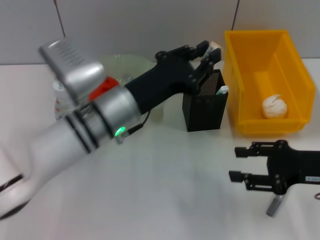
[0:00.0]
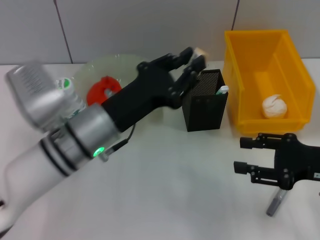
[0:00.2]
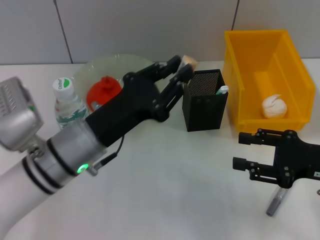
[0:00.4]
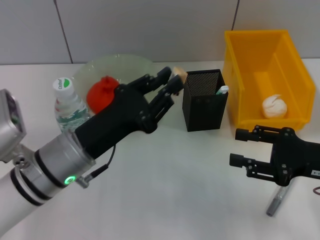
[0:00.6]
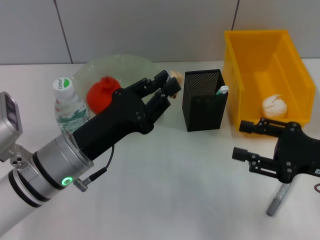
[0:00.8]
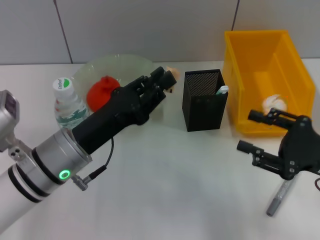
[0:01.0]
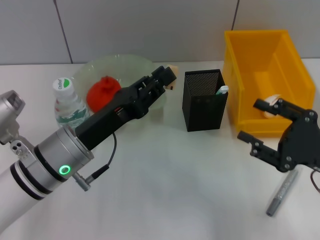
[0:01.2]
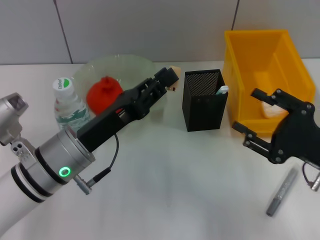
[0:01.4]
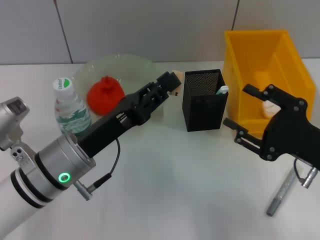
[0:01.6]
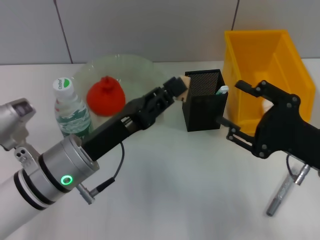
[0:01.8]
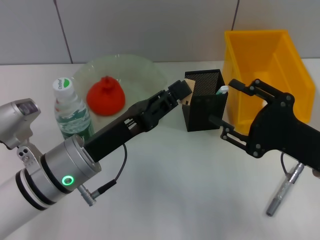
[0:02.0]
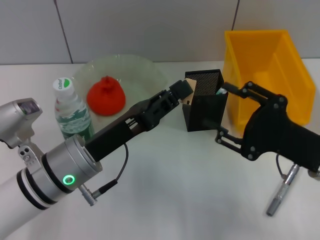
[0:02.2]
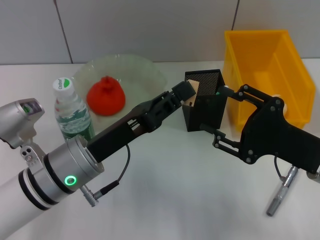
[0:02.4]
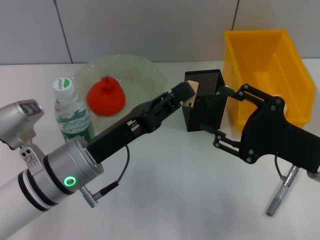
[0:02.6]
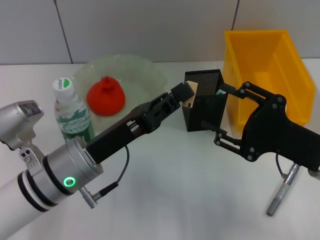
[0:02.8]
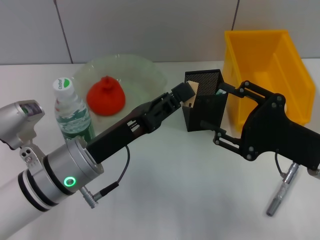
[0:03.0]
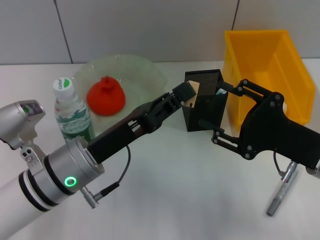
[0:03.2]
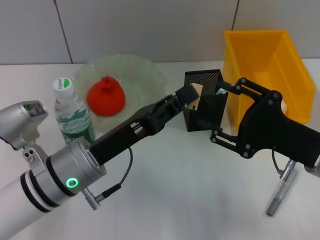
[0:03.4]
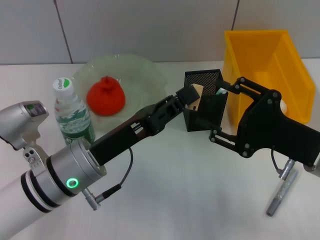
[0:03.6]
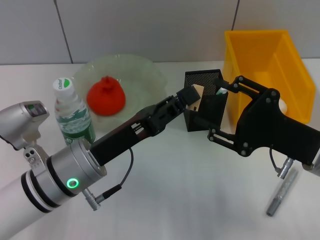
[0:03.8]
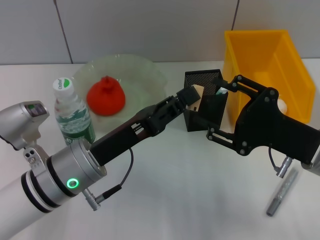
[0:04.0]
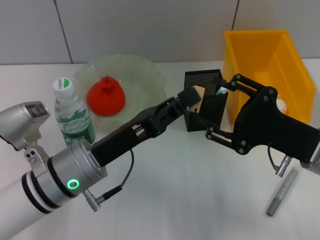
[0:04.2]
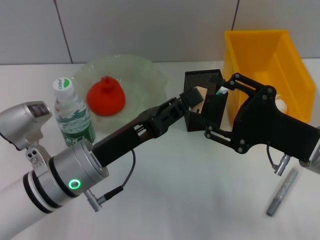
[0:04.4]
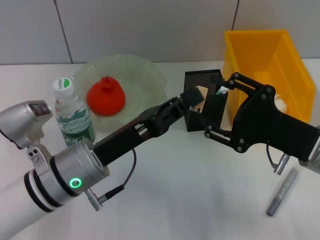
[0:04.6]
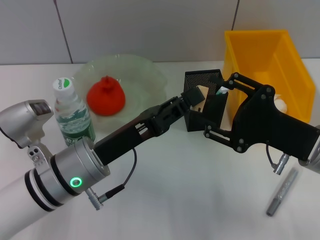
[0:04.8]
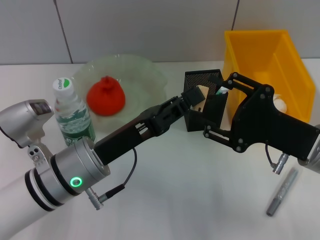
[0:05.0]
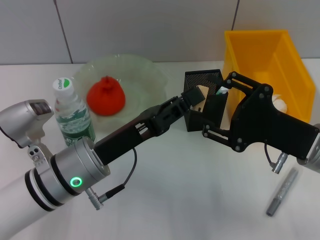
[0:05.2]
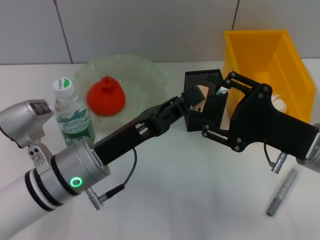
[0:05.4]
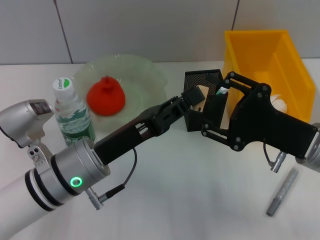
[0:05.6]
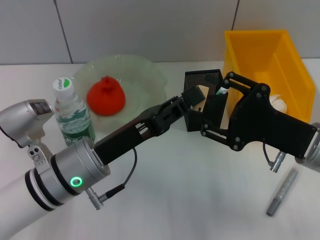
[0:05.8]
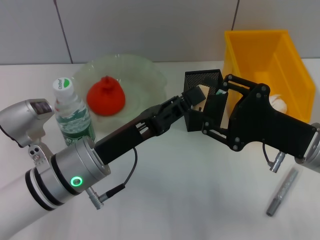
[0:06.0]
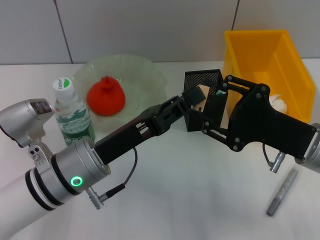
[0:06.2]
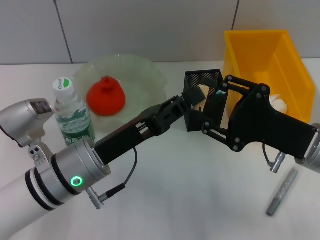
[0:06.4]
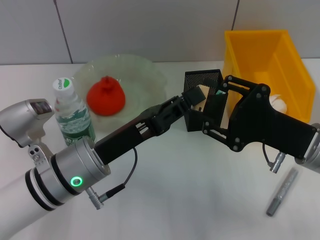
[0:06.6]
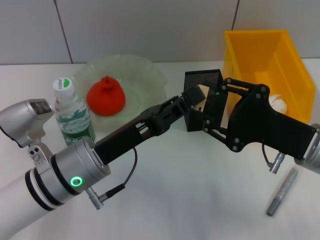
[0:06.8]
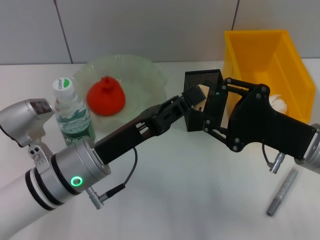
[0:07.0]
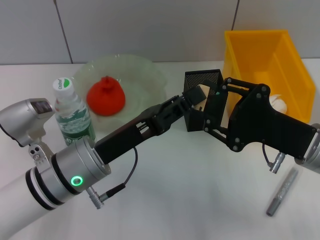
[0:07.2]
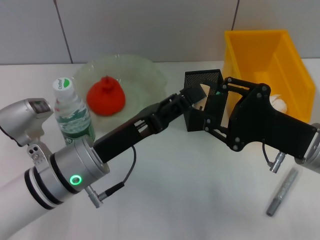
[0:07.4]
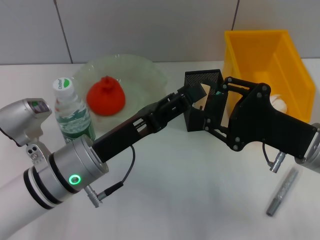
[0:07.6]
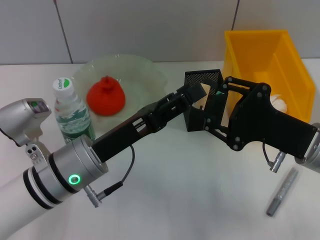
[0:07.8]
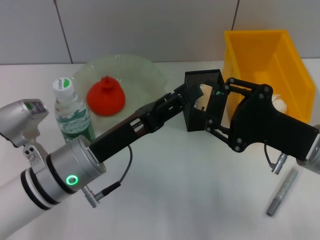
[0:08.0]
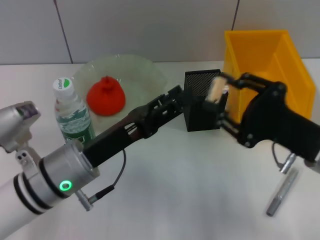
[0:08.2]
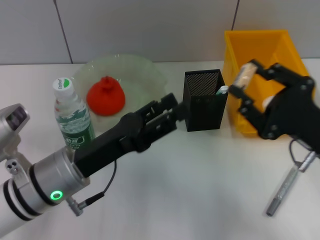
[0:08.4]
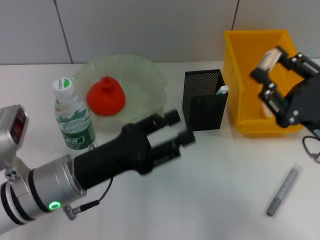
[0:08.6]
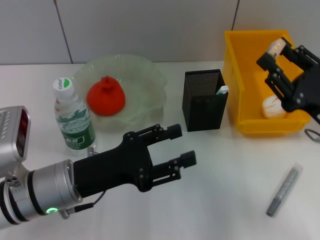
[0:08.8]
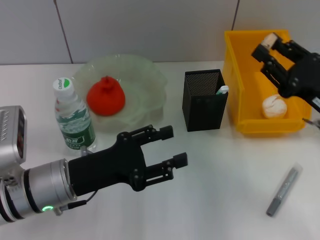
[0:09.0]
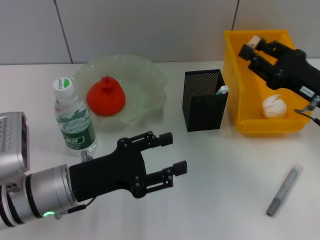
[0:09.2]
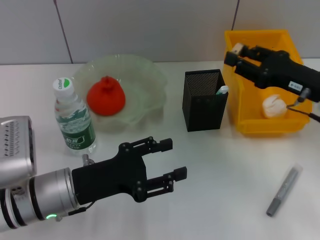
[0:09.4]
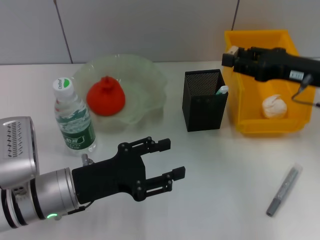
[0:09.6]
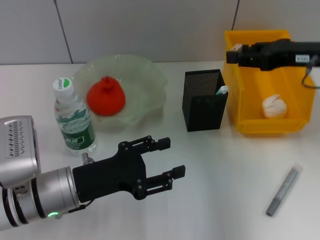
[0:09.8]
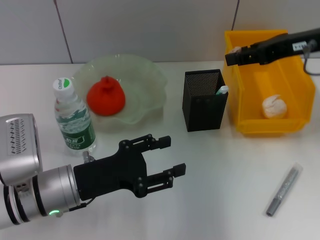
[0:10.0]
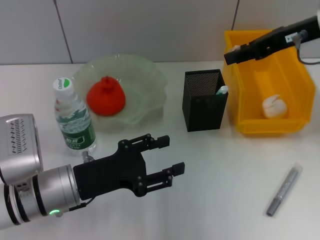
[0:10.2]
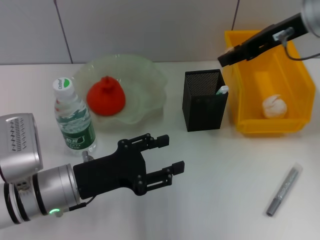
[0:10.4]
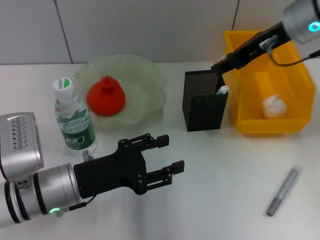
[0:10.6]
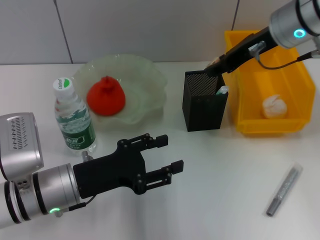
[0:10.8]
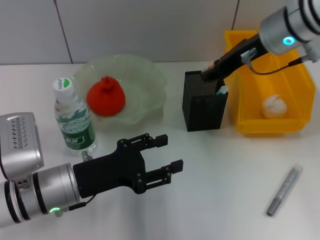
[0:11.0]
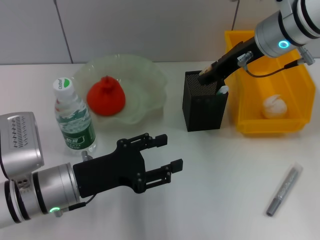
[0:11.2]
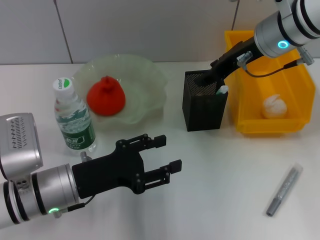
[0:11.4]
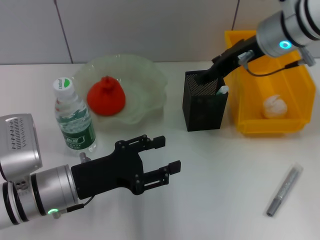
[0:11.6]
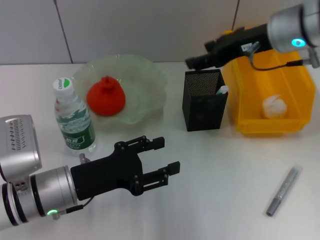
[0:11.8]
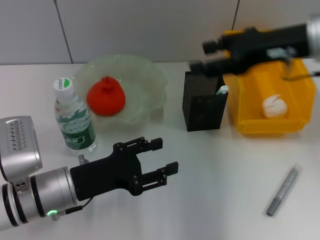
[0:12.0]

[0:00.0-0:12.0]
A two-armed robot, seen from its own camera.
Step, 0:00.0 to 0:08.2: Pass the eraser from the left hand to the right hand.
Step, 0:08.4 to 0:11.6: Put the eraser into the pen holder with the right hand.
0:00.0 to 0:01.6: The left gripper goes about 10 cm backward and to the left.
0:01.6 to 0:04.4: There are only small adjustments of the grippers.
0:04.4 to 0:07.6: The two grippers keep their place.
0:07.6 to 0:09.0: The left gripper opens up; the right gripper heads to the right, covering some 5 cm.
0:09.0 to 0:10.4: The right gripper is displaced upward and forward by roughly 20 cm.
0:10.4 to 0:12.0: The right gripper moves backward, about 5 cm, and opens.

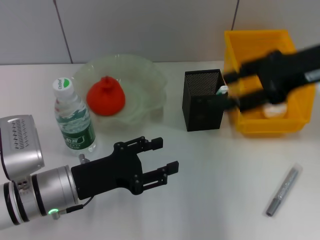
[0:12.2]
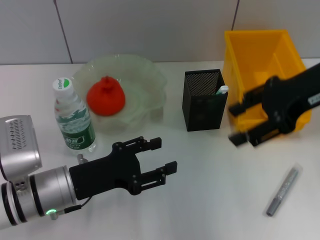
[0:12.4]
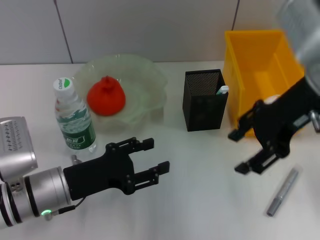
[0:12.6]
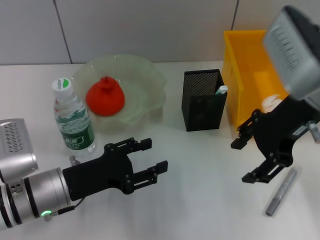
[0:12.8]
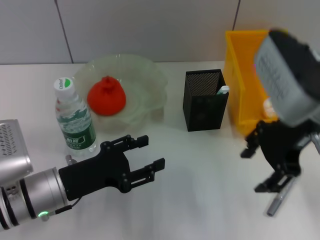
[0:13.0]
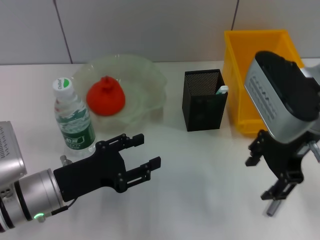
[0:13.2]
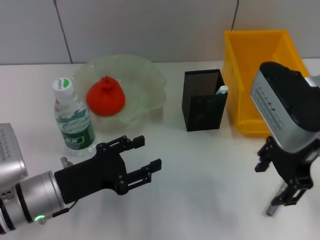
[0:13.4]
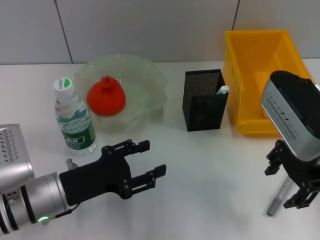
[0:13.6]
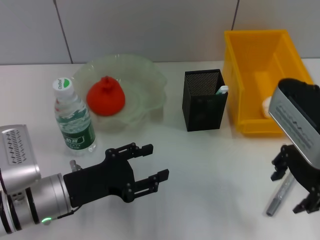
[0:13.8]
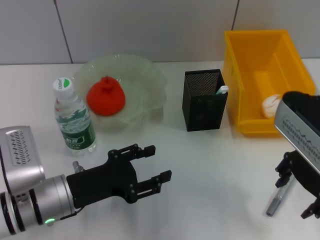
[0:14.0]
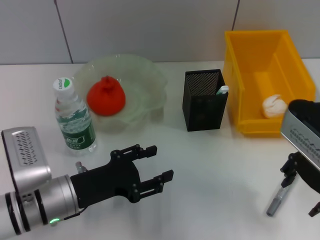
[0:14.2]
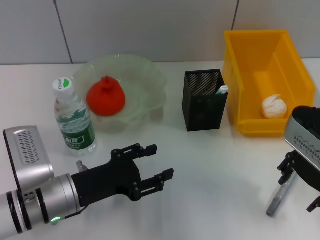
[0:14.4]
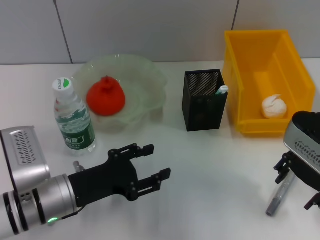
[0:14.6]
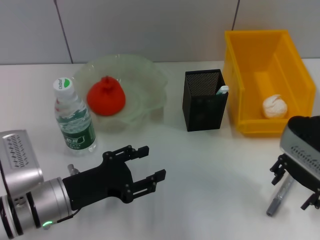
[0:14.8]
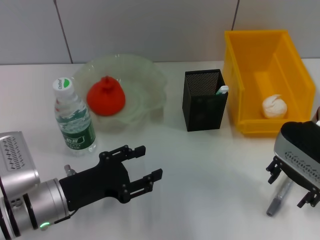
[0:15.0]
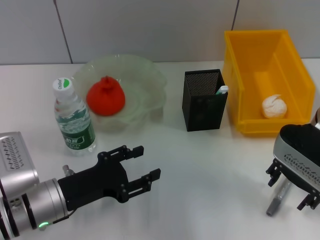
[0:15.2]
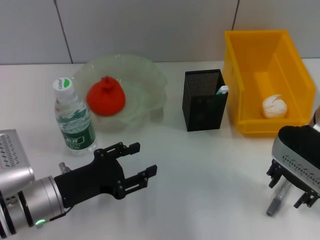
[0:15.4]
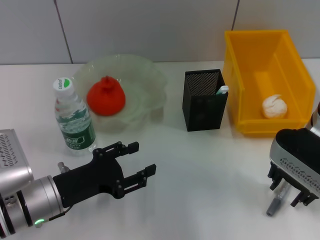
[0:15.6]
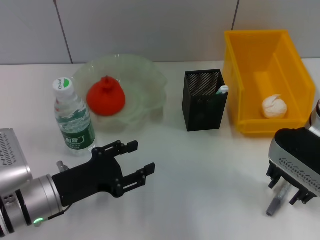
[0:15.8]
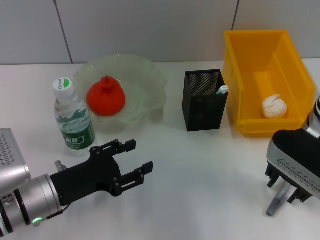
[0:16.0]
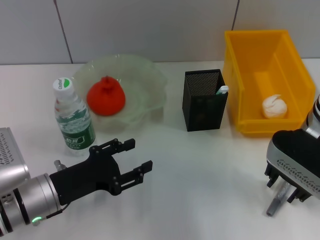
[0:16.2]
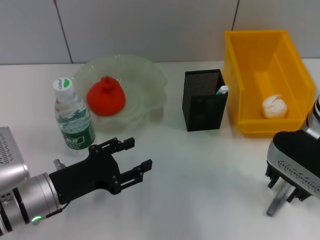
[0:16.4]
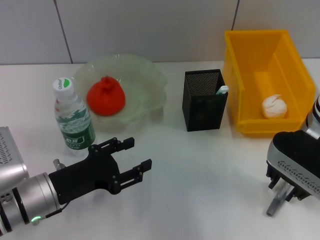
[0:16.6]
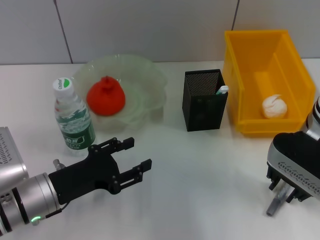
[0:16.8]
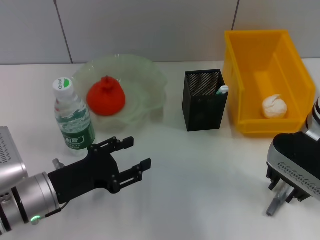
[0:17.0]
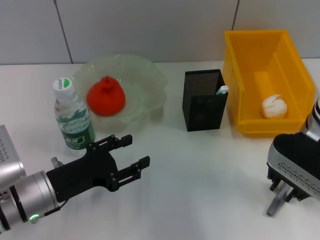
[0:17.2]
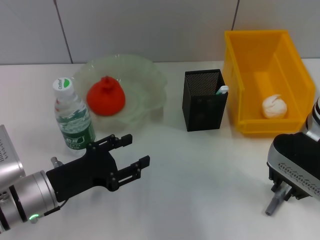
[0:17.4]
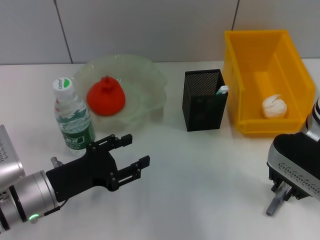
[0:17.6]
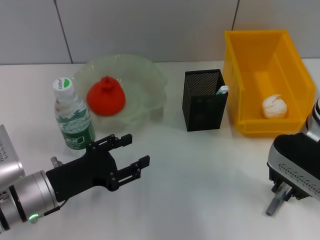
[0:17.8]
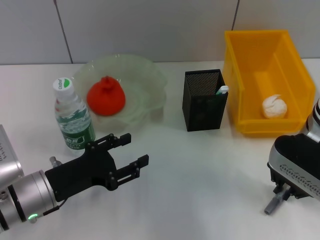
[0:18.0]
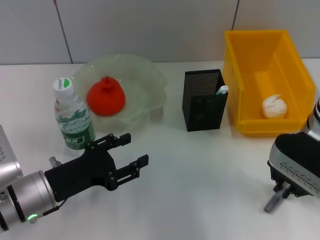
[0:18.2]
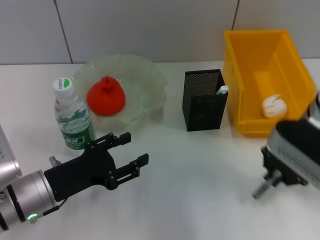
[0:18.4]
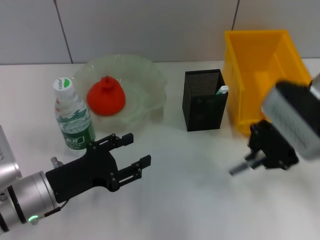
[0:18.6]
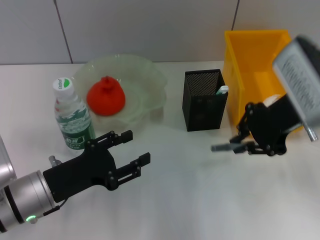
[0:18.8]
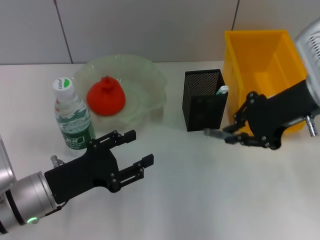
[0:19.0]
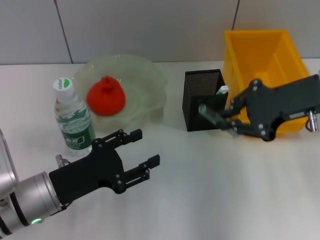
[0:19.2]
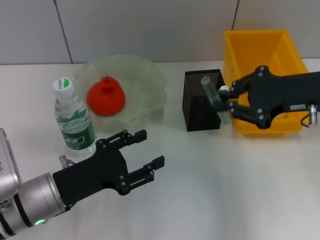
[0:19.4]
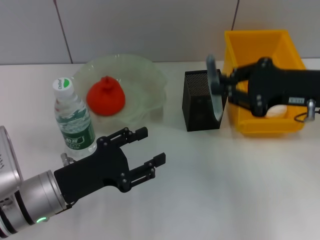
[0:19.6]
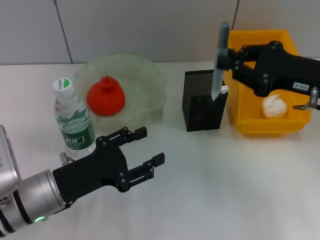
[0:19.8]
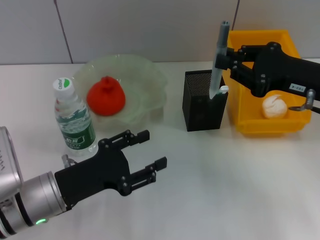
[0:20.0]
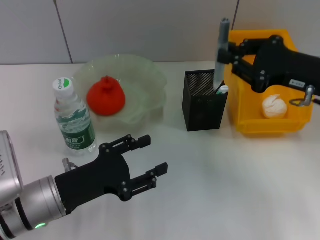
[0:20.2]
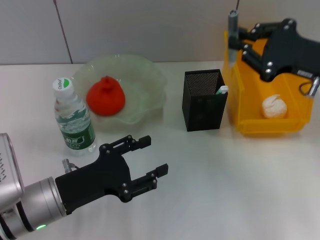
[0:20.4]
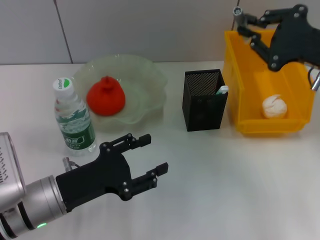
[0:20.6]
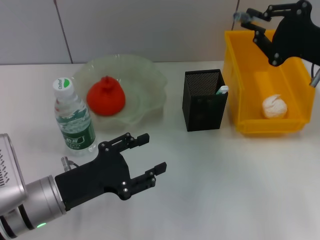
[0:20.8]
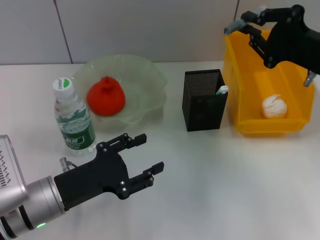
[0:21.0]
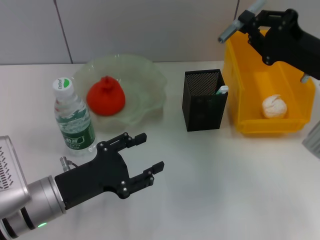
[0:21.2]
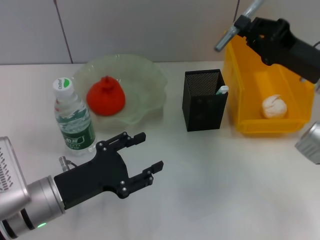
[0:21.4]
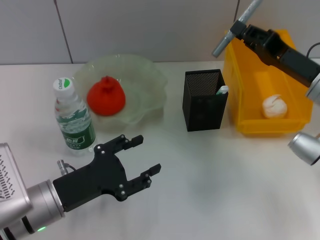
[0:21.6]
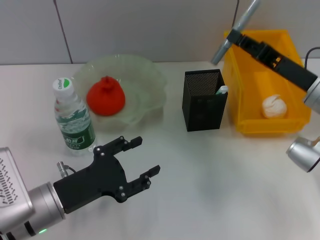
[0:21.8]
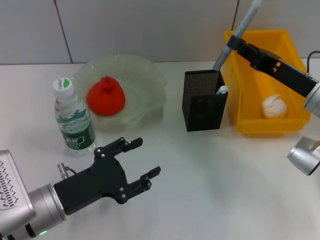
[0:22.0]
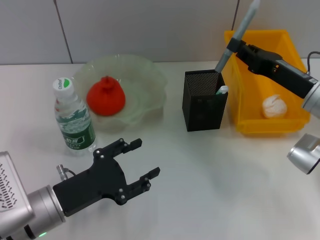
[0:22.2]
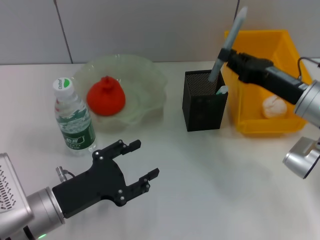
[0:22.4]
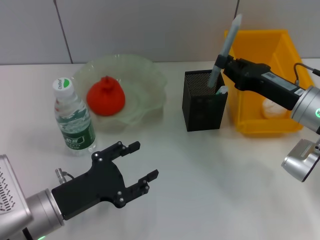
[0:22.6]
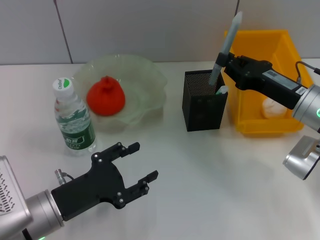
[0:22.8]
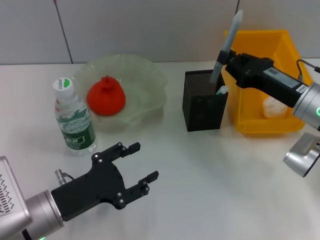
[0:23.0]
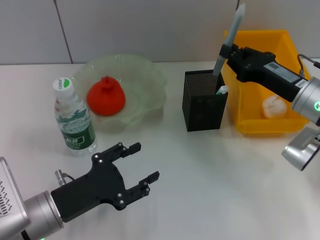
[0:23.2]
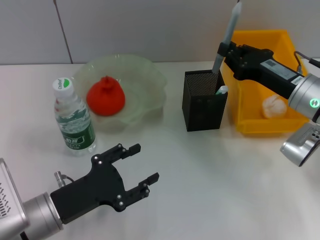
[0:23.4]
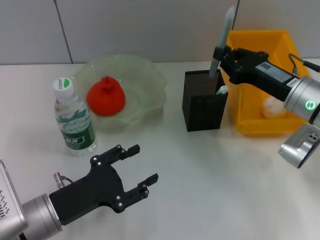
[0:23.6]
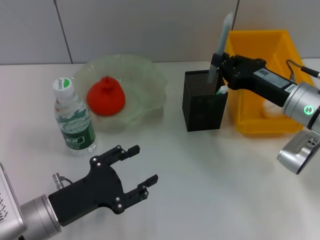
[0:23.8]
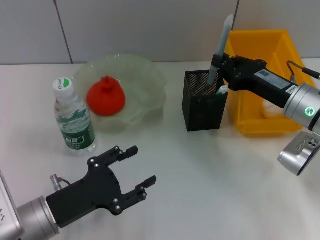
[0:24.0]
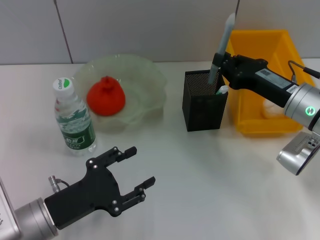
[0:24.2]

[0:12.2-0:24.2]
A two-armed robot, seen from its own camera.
Step, 0:12.2 to 0:18.0: Grab the gray spring-action pen with the right hand.
0:12.2 to 0:13.8: The right gripper moves downward, roughly 5 cm.
0:15.2 to 0:16.6: The right gripper closes its fingers.
0:16.6 to 0:18.2: The right gripper closes.
0:18.2 to 0:19.8: The right gripper is displaced to the right by roughly 5 cm.
0:21.2 to 0:22.6: The right gripper moves downward, approximately 5 cm.
0:22.6 to 0:24.2: The grippers move only a little.
